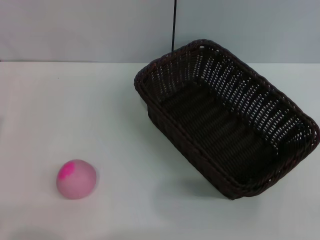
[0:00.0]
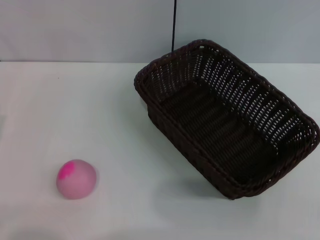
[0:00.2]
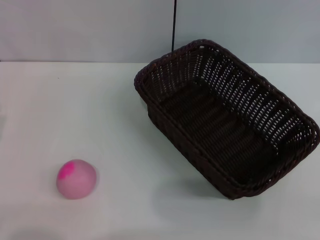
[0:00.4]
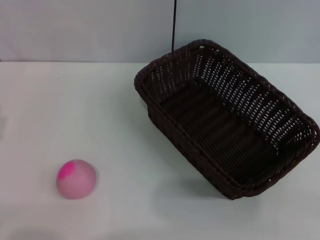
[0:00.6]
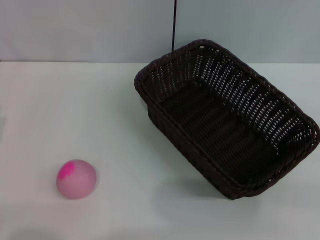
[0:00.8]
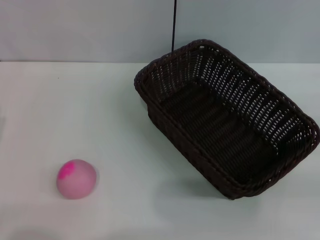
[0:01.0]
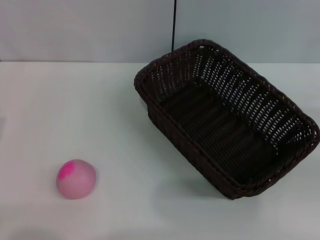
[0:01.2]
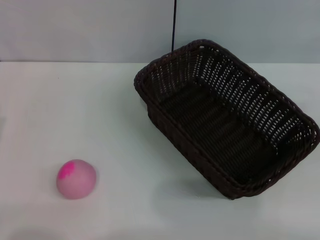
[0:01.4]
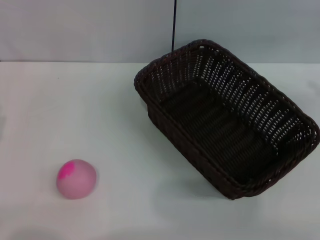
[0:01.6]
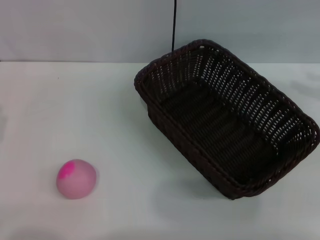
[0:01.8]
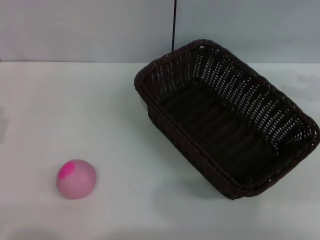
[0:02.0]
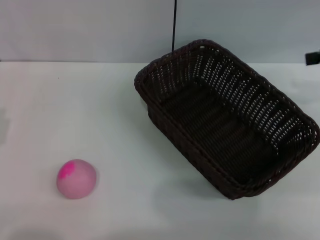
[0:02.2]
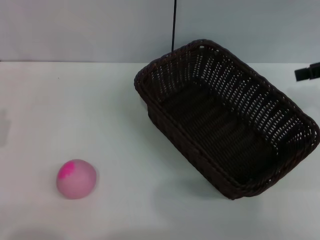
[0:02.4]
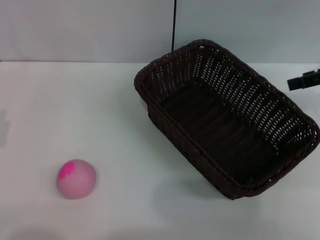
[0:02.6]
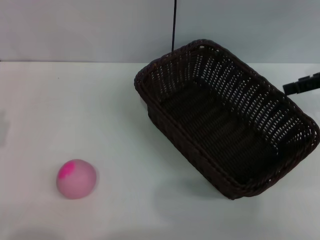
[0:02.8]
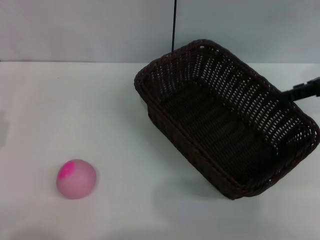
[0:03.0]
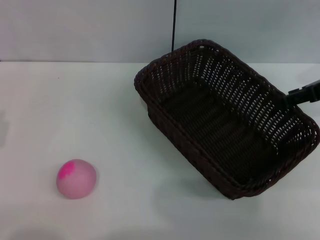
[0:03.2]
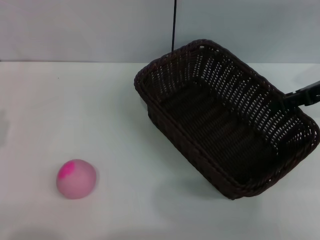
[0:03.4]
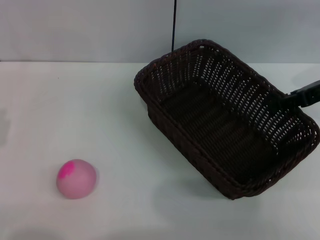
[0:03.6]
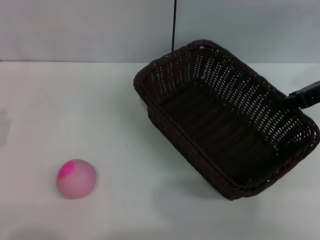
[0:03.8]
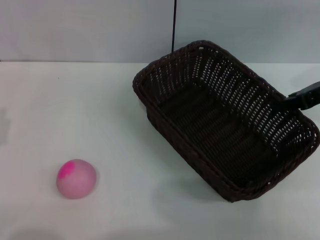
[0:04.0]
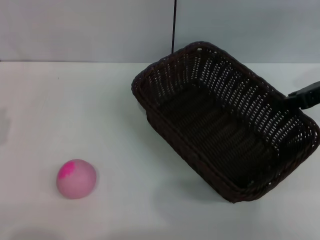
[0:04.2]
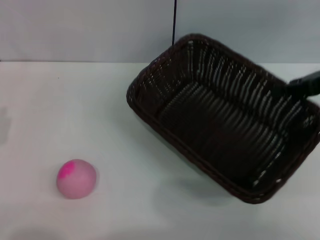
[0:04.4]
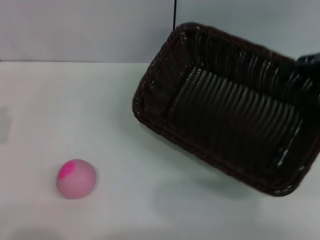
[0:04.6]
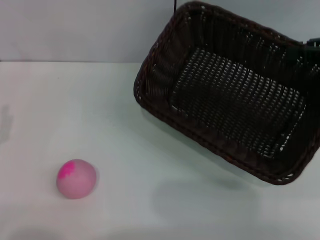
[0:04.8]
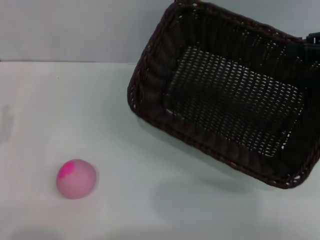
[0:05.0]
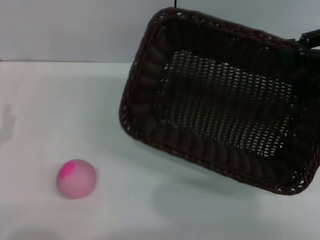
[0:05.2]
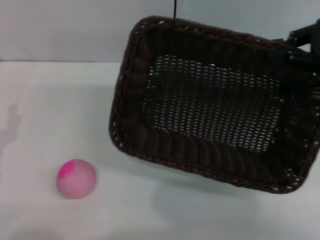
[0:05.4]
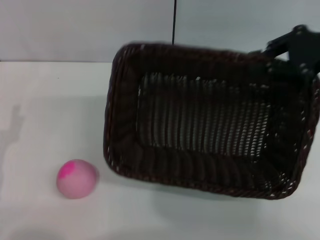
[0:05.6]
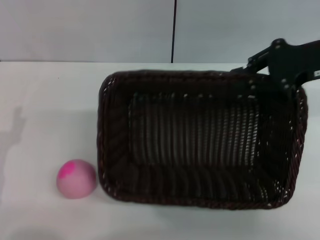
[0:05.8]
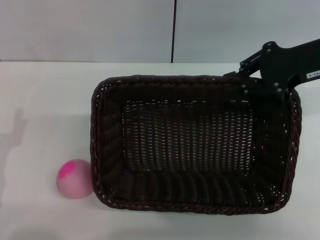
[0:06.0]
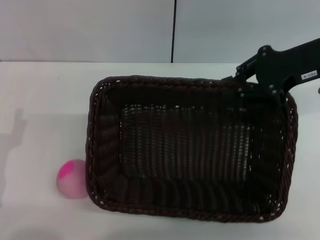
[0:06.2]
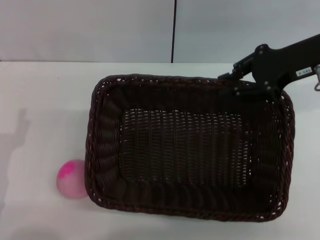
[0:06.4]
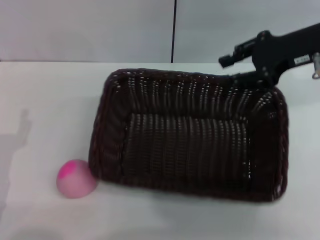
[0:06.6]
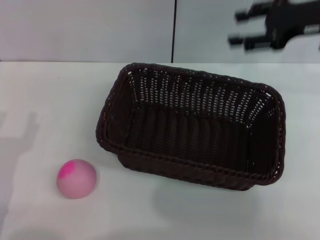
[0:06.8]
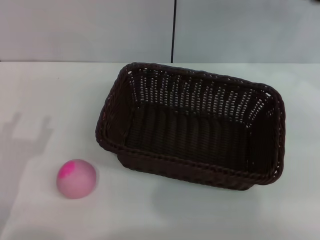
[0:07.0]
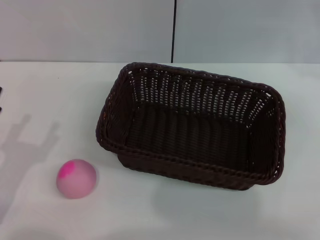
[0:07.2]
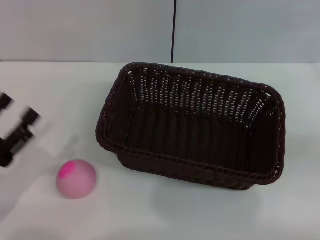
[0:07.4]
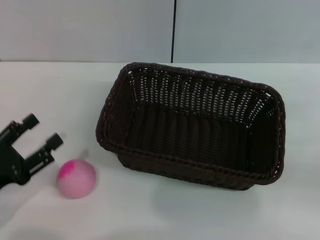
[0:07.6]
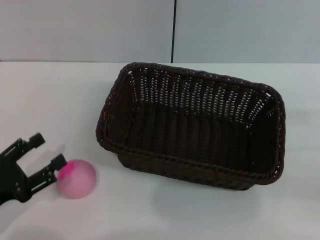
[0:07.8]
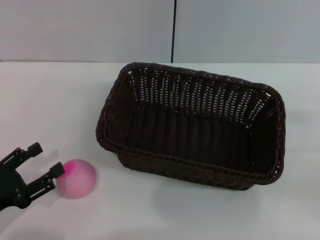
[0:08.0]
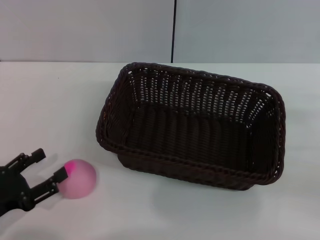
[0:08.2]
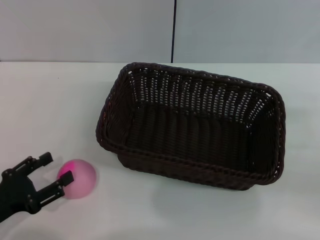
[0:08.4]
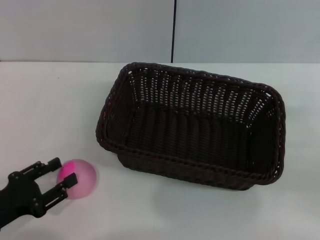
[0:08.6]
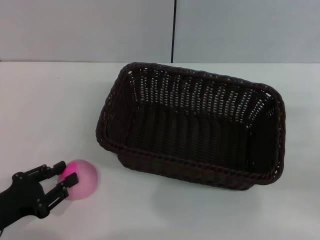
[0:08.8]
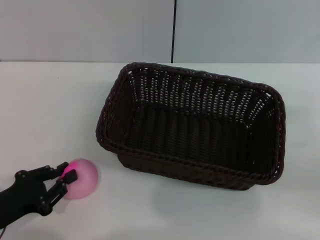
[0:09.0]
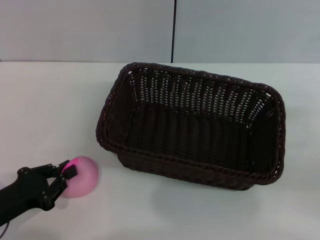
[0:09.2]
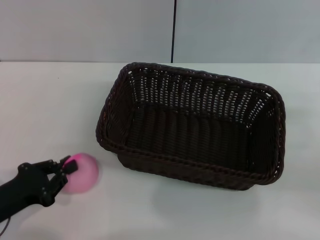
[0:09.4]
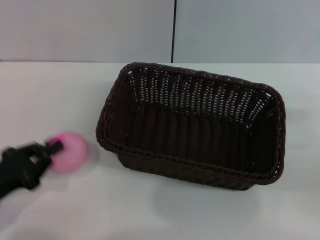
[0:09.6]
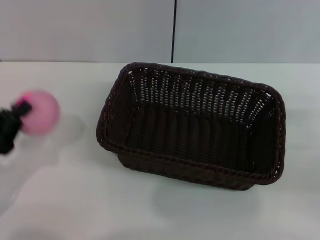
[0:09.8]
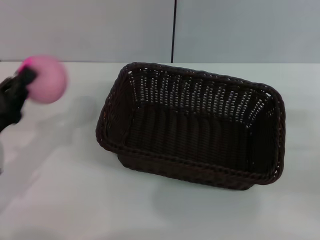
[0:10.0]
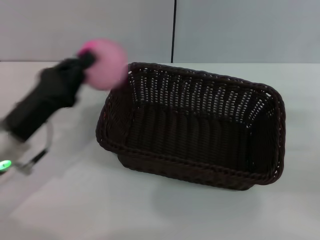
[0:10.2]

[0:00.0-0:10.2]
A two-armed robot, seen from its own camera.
Step, 0:00.0 to 0:04.6: Pick up the dark basket with the right gripper.
Step, 0:04.8 to 0:06.8: Place the dark basket in the center of view with the right gripper.
Step, 0:07.0 to 0:09.8: Pick up the peach with the left gripper.
0:01.4 to 0:03.0: The right gripper shifts about 15 cm to the left and forward.
0:03.0 to 0:04.4: The right gripper closes up.
0:04.4 to 0:05.8: The right gripper travels to the left by roughly 5 cm.
0:05.8 to 0:07.2: The right gripper shifts roughly 10 cm to the right, and opens its fingers.
0:08.8 to 0:10.2: The left gripper is displaced forward, to the right and upward by some 10 cm, and closes.

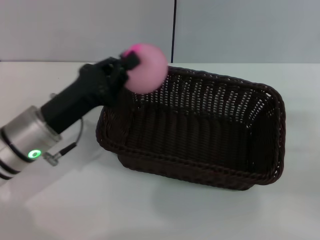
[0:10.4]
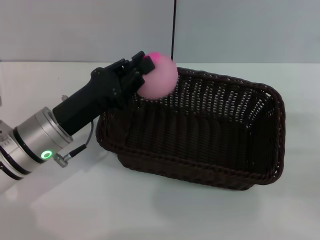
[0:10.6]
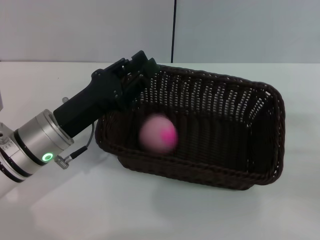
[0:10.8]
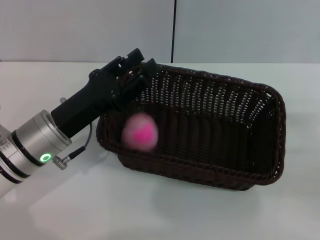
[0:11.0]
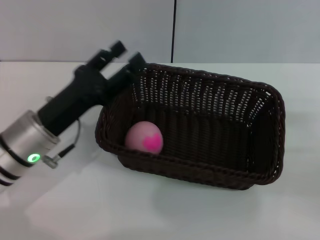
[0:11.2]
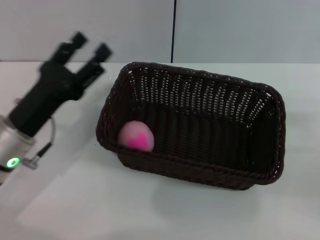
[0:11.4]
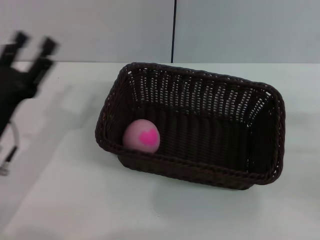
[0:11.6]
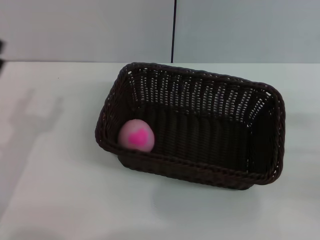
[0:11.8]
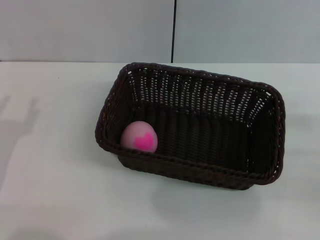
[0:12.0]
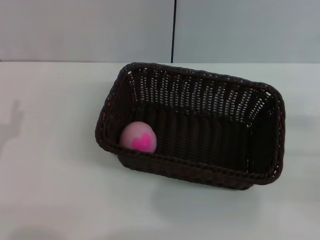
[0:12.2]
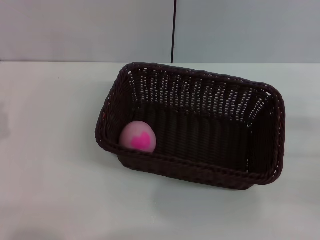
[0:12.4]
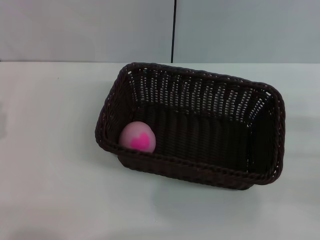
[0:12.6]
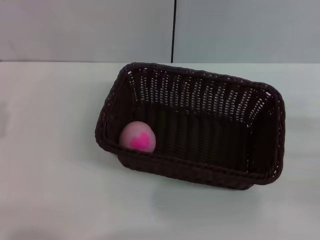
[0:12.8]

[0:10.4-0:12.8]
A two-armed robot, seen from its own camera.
Step, 0:10.4 to 0:11.0: Place the peach into the basket with the left gripper.
0:10.4 to 0:11.6: The left gripper changes place by approximately 5 cm, and opens its fingers.
0:11.6 to 0:12.8: The left gripper shifts some 10 cm to the left and backward, and closes up.

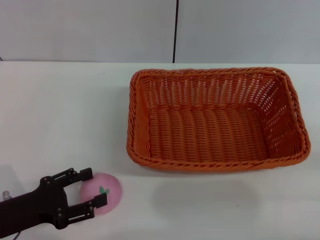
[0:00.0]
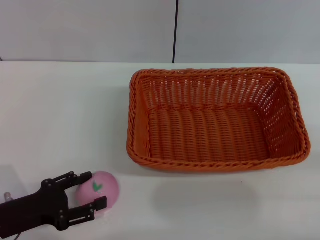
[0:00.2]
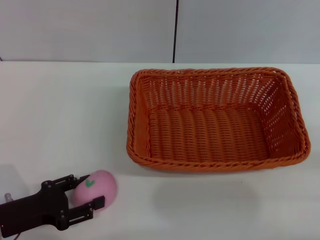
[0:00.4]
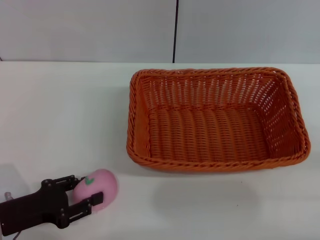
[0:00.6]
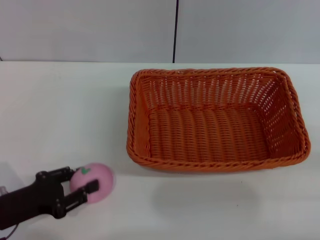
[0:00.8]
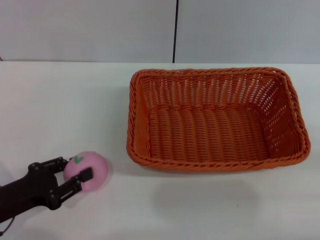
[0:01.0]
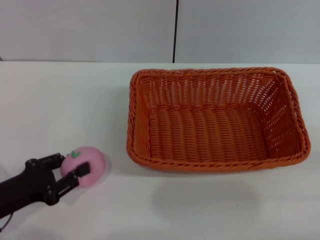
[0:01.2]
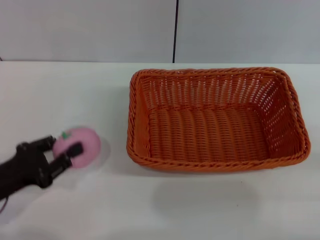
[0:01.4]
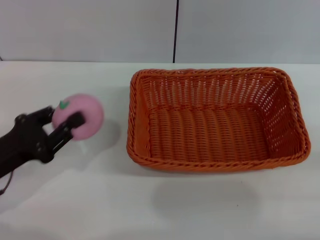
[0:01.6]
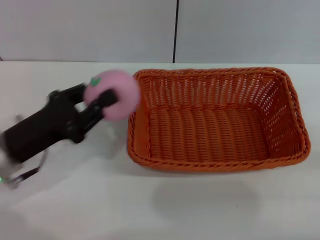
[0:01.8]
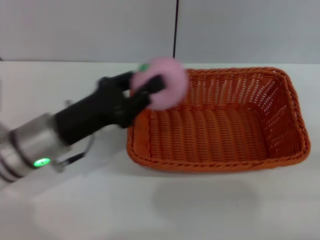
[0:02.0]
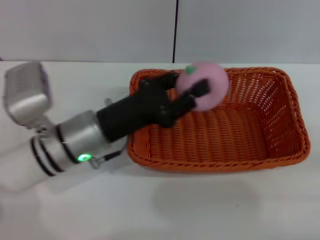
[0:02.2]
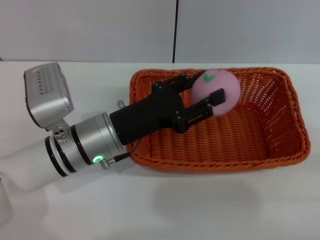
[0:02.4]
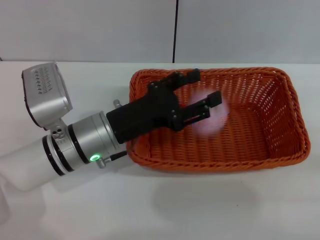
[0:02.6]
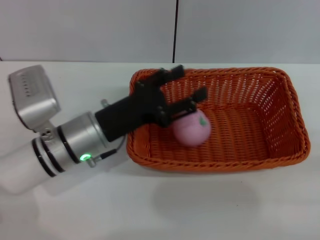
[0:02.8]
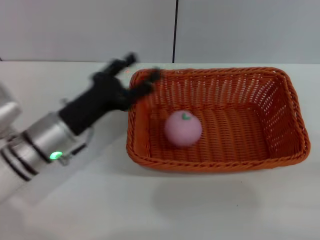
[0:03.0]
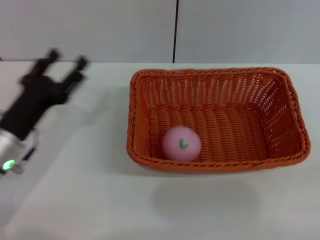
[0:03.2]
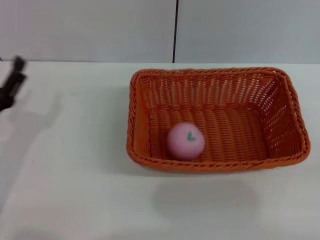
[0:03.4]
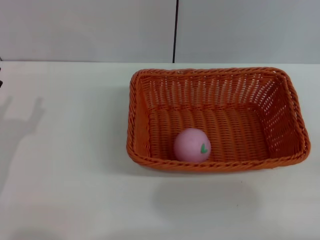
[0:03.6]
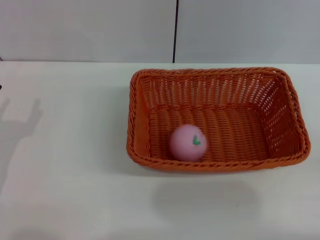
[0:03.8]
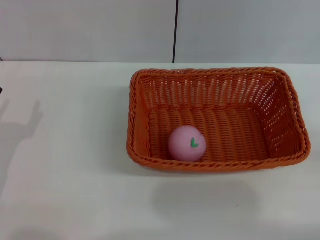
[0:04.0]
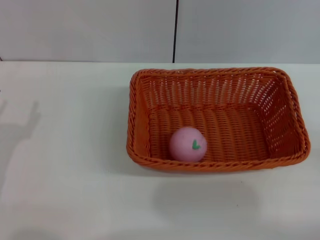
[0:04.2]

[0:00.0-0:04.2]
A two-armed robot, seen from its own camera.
Step, 0:00.8 to 0:02.6: Place the peach in the dark basket with left gripper.
0:00.0 to 0:01.4: The left gripper closes.
0:01.4 to 0:02.8: The left gripper shifts about 20 cm to the right and forward, and opens up.
0:02.8 to 0:04.2: The left gripper moves to the left and backward, approximately 20 cm. Meanwhile the right gripper opens up.

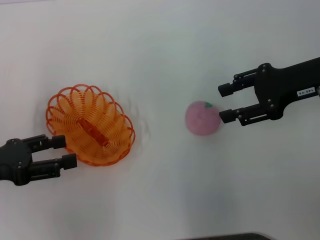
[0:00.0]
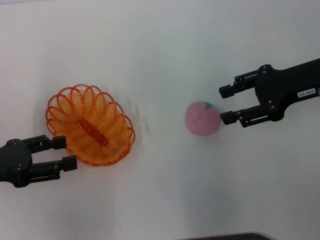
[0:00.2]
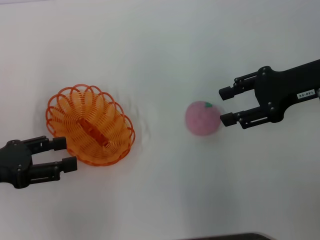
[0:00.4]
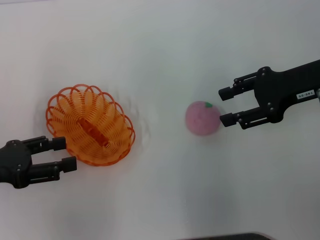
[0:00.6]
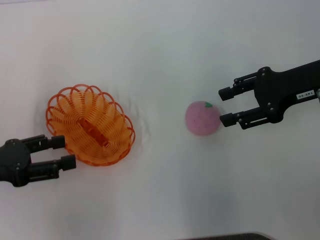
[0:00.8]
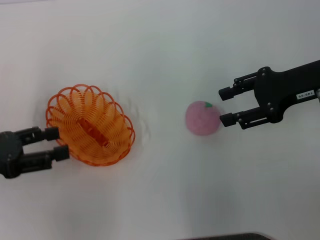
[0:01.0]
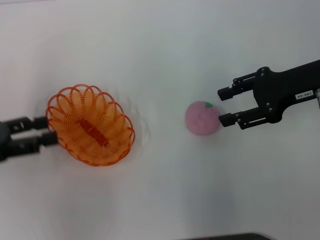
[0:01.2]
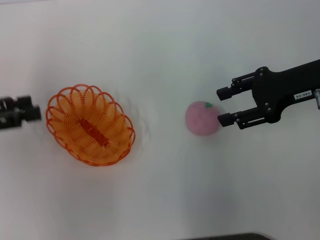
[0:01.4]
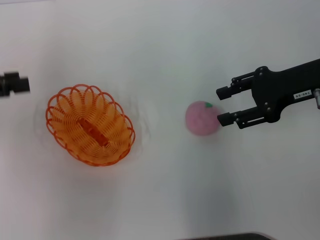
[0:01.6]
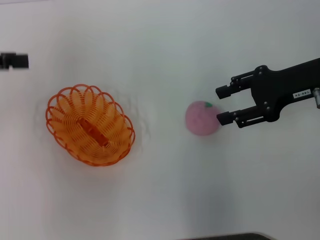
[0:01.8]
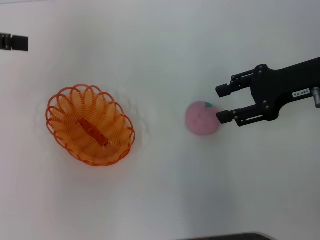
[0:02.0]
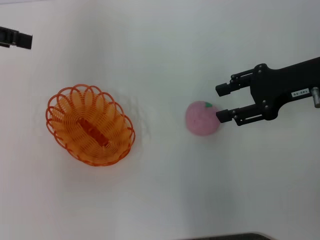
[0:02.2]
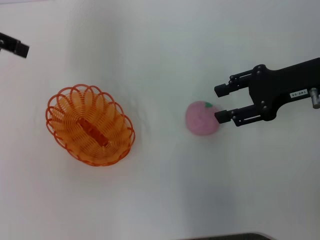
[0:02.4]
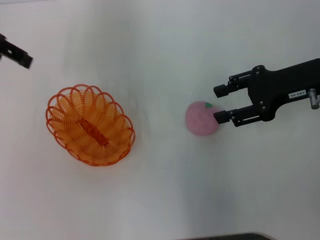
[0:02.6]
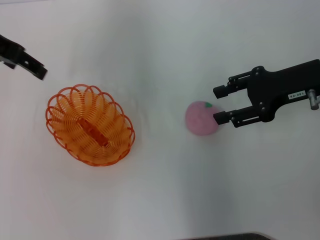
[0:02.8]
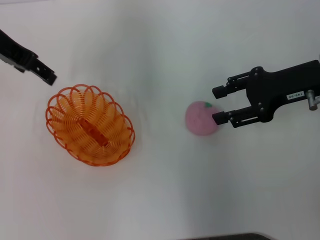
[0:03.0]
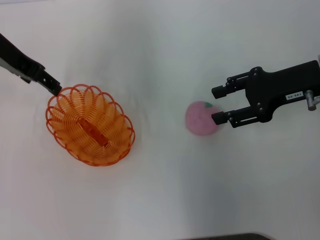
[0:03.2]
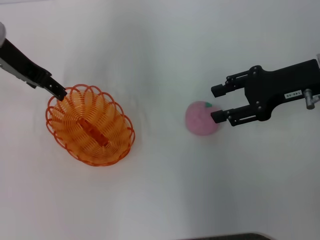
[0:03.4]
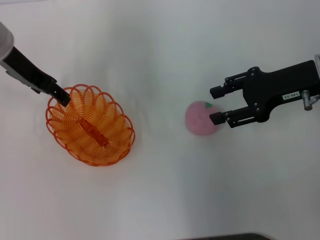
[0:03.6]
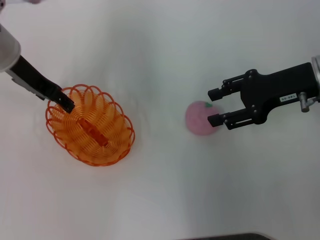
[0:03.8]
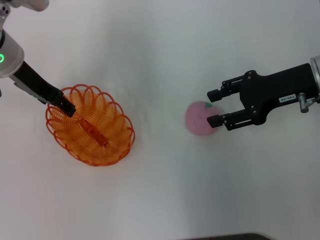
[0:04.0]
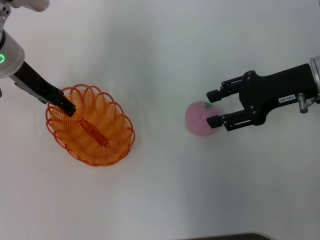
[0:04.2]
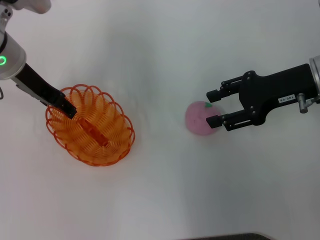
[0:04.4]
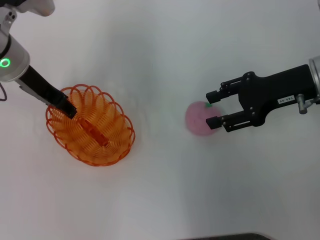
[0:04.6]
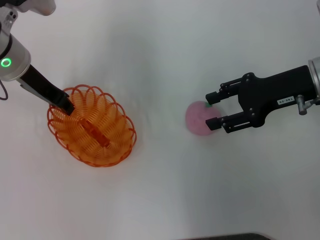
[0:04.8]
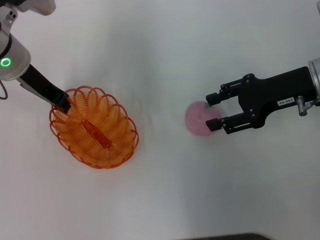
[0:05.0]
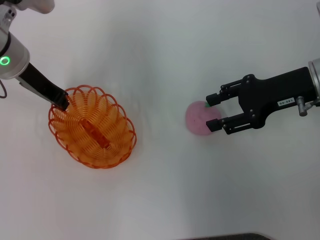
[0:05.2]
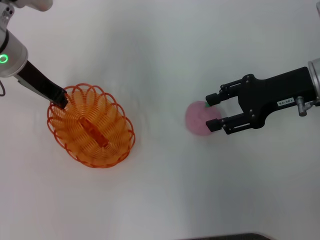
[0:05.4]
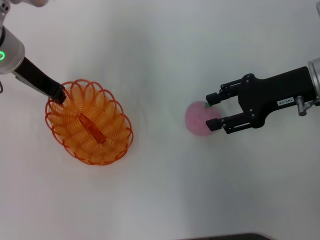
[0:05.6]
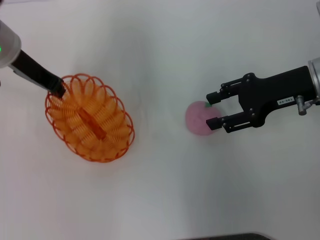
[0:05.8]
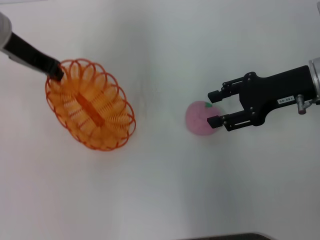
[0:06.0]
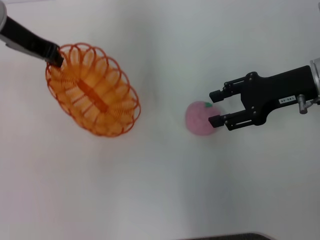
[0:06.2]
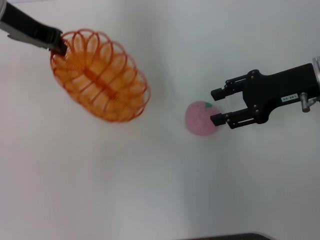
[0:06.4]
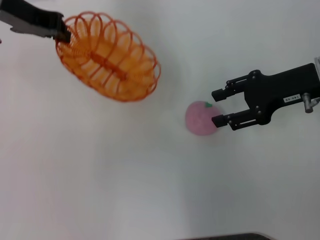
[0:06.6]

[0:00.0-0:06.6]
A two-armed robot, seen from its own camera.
Step, 0:00.0 to 0:05.8: Pick up the basket with the left gripper.
0:00.0 to 0:01.6: The left gripper travels upward and forward by some 10 cm.
0:01.6 to 0:03.2: The left gripper is displaced to the right and forward by roughly 15 cm.
0:03.2 to 0:05.0: The left gripper heads downward, covering about 5 cm, and closes up.
0:05.0 to 0:06.6: The left gripper goes approximately 10 cm upward.
